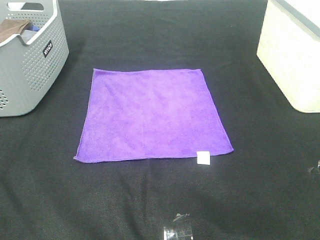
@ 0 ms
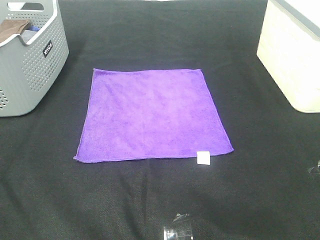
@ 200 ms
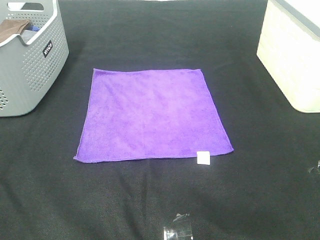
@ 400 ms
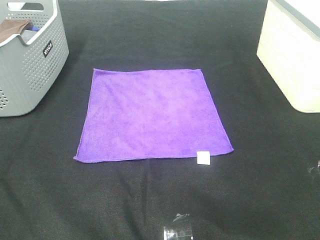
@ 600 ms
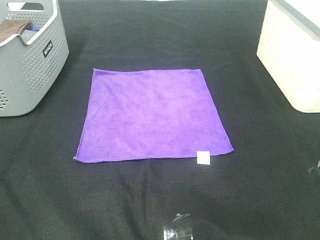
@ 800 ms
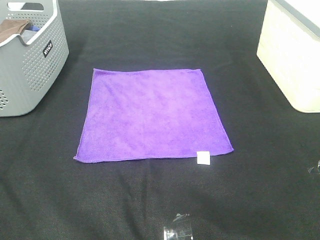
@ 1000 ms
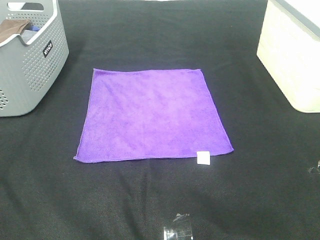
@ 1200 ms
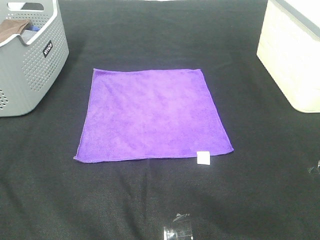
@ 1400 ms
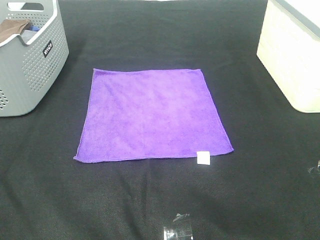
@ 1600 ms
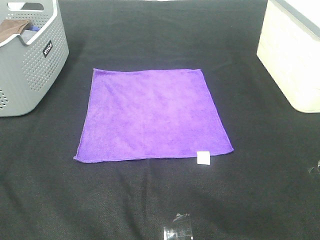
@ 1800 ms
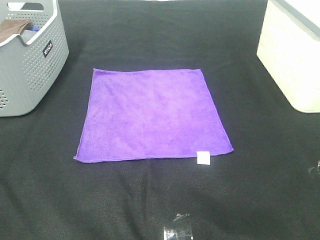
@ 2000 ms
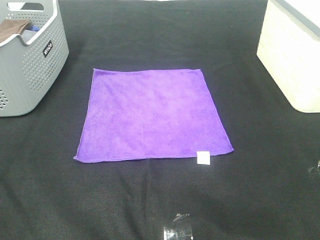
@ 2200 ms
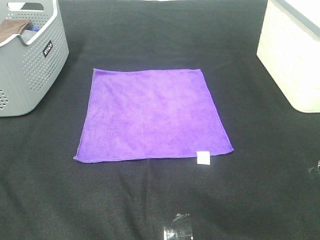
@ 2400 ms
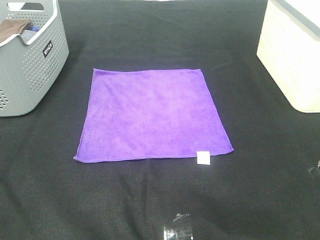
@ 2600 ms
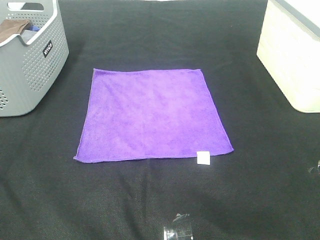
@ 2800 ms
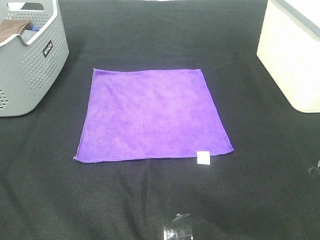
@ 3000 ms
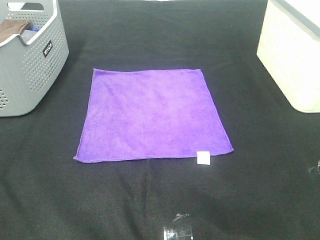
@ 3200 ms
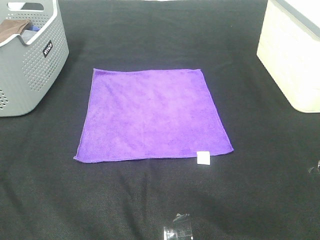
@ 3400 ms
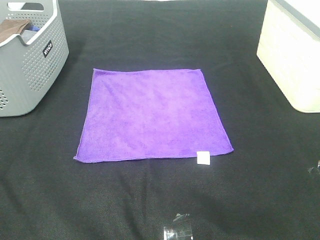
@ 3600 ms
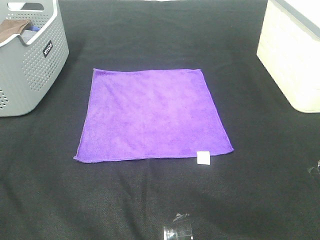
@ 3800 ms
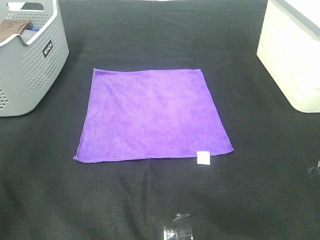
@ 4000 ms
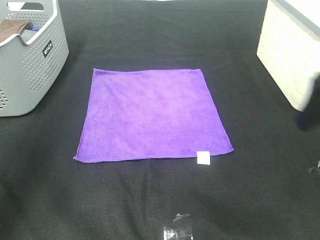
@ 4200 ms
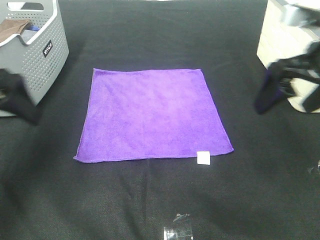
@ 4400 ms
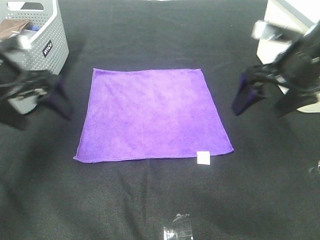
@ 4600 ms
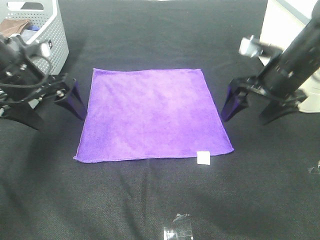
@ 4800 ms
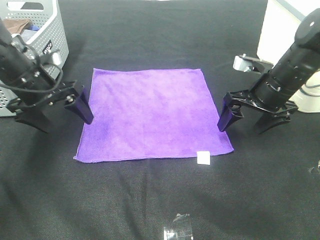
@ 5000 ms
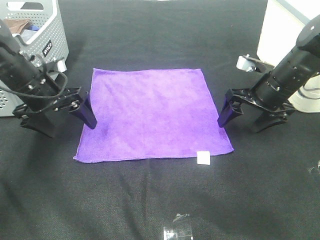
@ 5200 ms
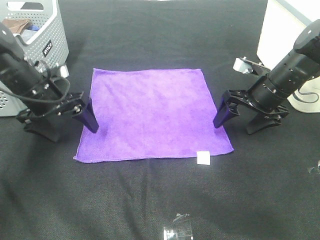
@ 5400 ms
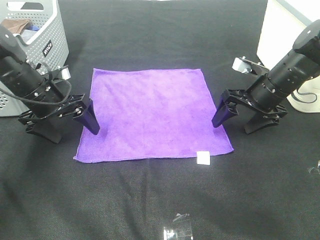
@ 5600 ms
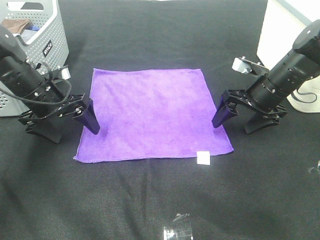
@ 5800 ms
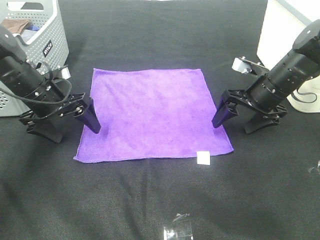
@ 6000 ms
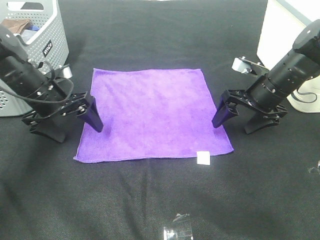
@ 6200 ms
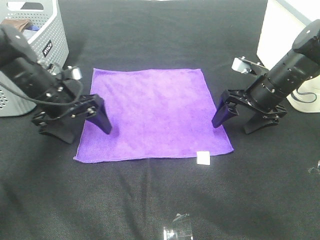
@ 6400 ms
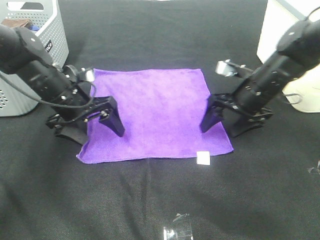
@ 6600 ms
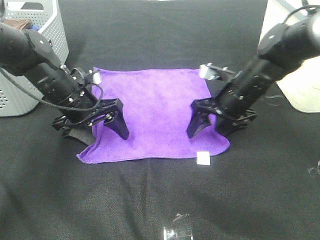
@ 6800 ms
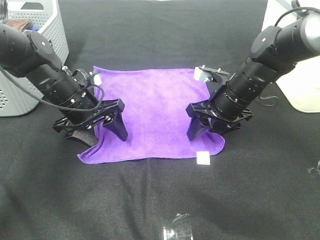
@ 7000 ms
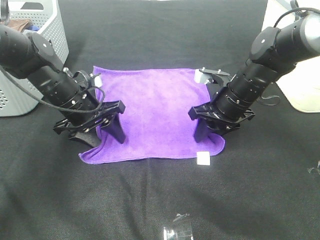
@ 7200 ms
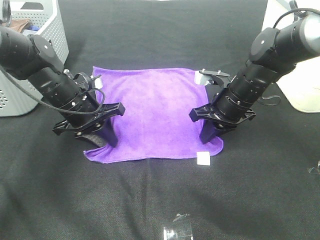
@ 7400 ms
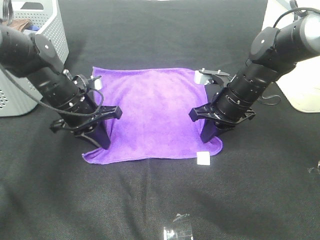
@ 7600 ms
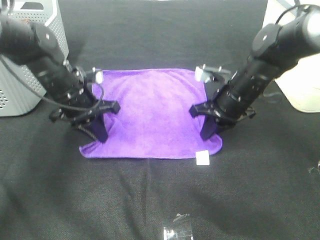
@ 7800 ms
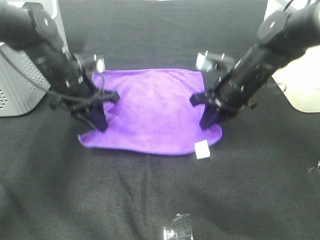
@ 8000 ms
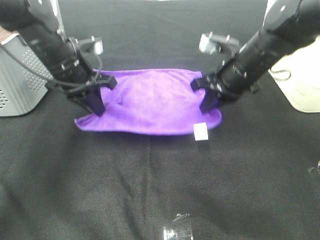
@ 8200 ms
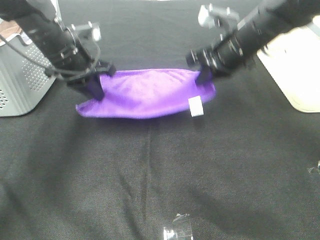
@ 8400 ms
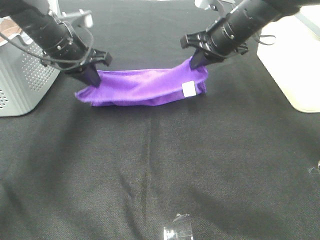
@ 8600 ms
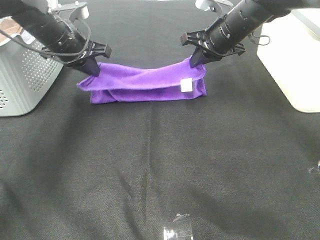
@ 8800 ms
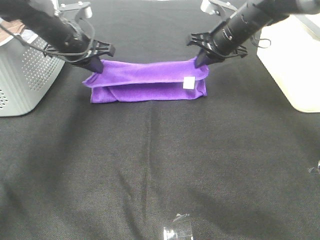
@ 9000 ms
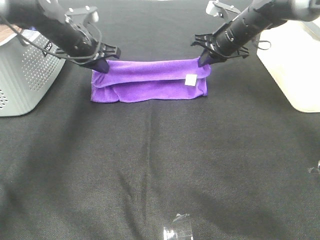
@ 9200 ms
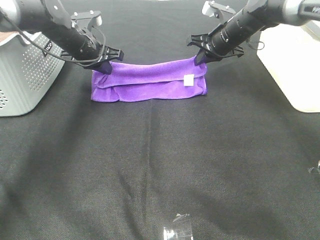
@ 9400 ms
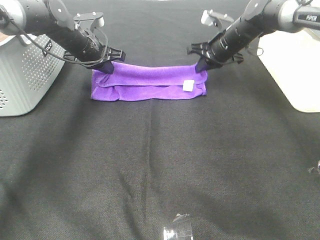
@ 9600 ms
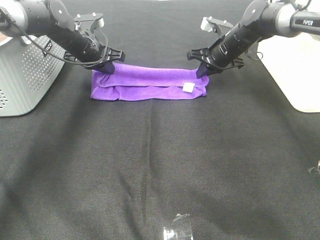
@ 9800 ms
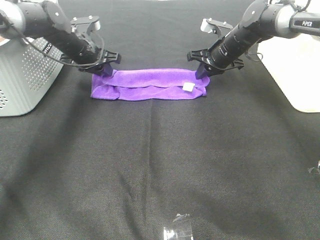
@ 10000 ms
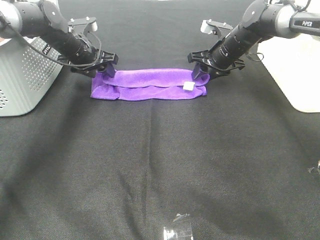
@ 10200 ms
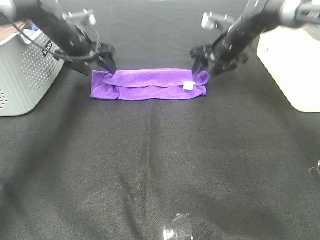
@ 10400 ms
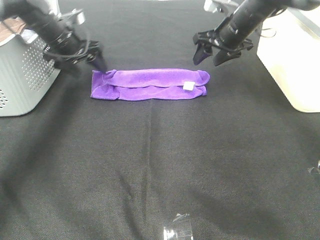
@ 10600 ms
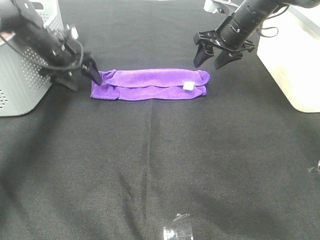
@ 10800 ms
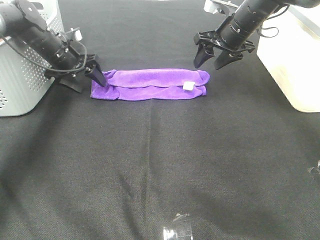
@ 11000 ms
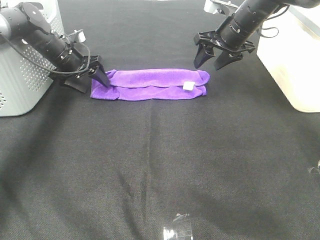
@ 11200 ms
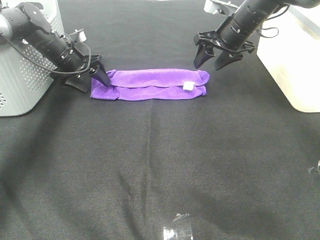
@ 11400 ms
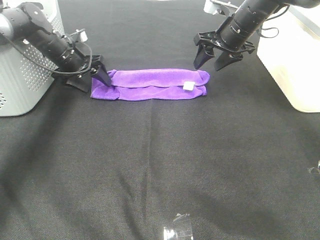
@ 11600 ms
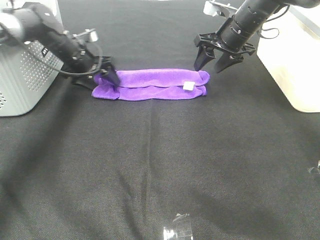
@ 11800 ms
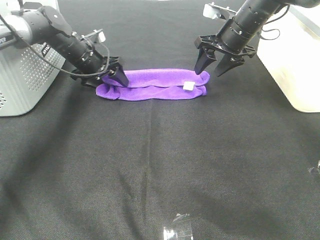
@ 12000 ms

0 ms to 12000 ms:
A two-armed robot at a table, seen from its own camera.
Task of the whole recording: Fold towels.
Step, 0 ms to 7600 ms: Left hand: grab the bottom left corner of purple towel.
Step, 0 ms to 7600 ms: Right hand: grab the bottom right corner of purple towel.
Step, 7800 ms to 9600 ms: Left hand: fold the purple towel up.
Step, 7800 ms to 9600 ms: Right hand: fold the purple towel up.
0 ms to 3000 ms: Neither gripper changes place.
3000 ms to 4400 ms: The grippers both shift forward by approximately 30 cm.
4400 ms to 6000 ms: The grippers both shift downward and forward by about 20 cm.
6000 ms to 7600 ms: The left gripper travels to the right by approximately 5 cm, and closes up. The right gripper goes some 5 cm to the left, and closes up.
7600 ms to 9000 ms: Both grippers move forward and upward, roughly 15 cm.
9000 ms to 10400 ms: The left gripper ends up some 5 cm from where it was, and opens up. Meanwhile the right gripper opens up.
10400 ms to 12000 ms: The left gripper travels downward by some 5 cm.

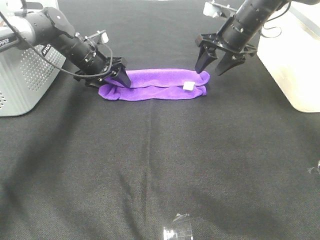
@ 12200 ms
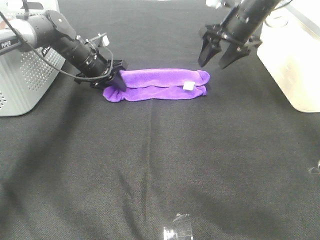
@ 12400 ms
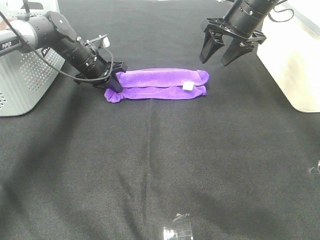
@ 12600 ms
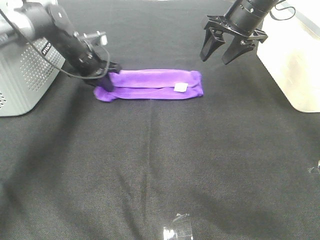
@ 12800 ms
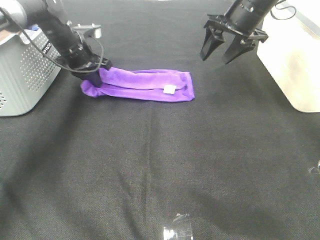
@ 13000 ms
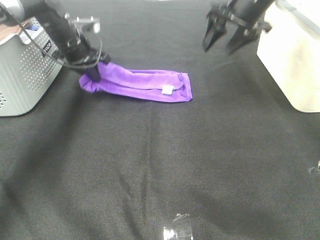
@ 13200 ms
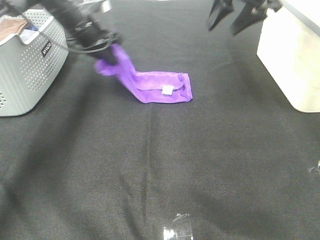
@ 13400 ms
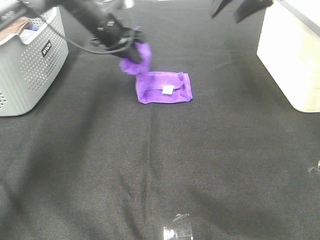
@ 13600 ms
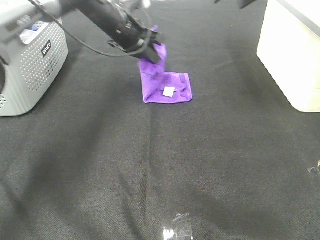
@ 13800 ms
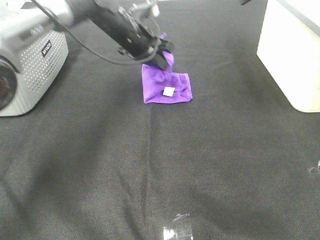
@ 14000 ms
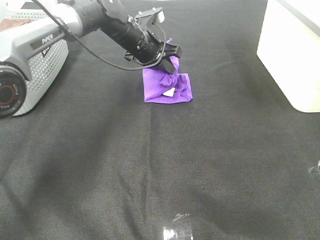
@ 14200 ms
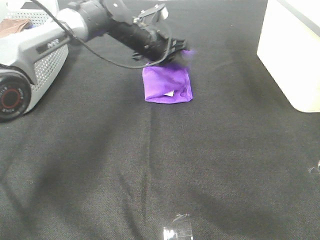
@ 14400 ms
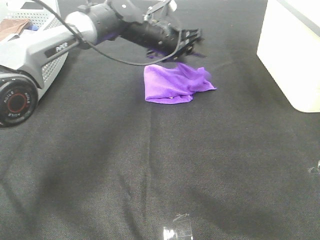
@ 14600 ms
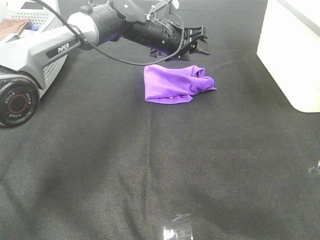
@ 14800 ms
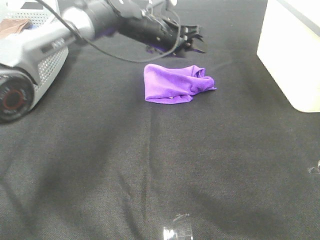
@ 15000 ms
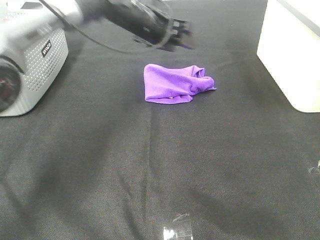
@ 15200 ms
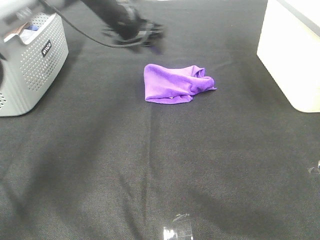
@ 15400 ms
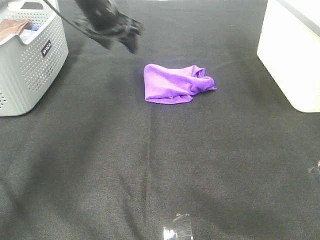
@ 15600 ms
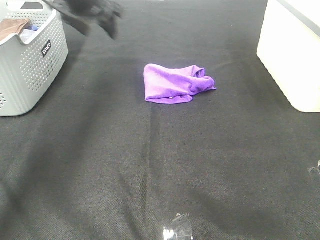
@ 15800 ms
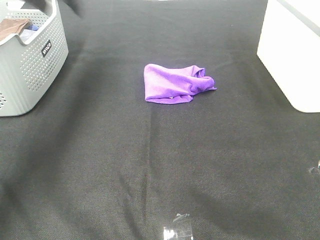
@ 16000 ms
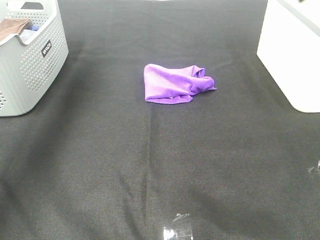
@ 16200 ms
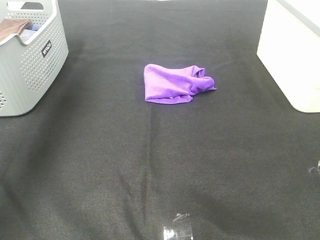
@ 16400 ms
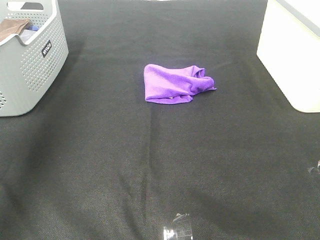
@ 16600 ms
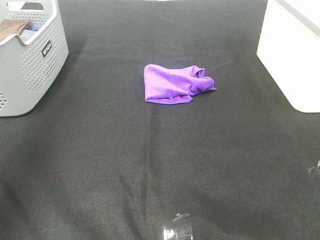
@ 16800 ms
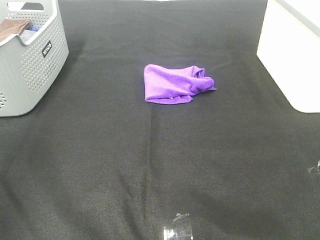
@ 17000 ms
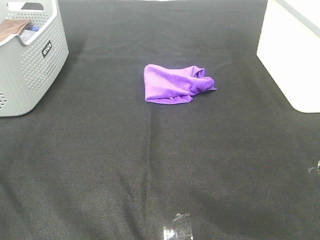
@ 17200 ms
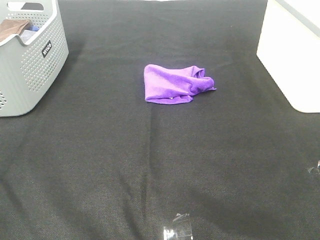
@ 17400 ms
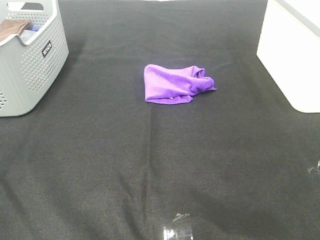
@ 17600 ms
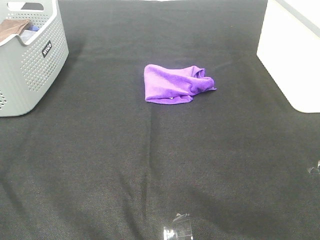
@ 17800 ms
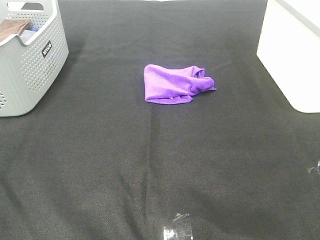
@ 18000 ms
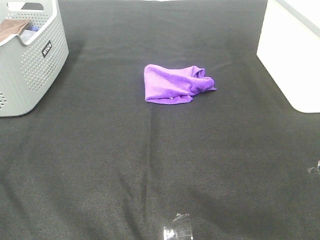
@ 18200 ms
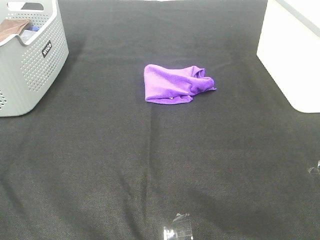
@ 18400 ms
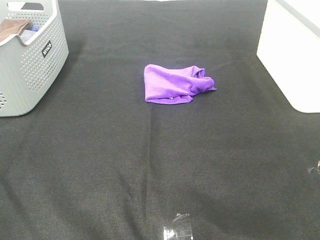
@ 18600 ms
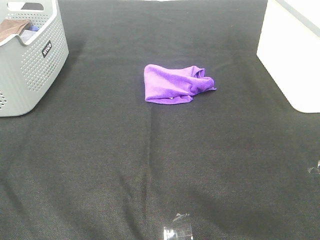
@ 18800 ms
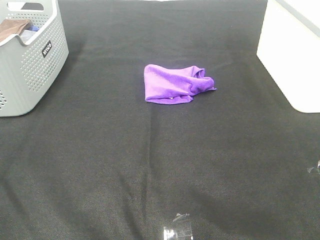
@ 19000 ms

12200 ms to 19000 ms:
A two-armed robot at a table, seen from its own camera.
Task of the whole recording: Fold towels.
12200 ms to 13600 ms: The left gripper travels upward and to the right by roughly 10 cm, and closes up. The right gripper heads upward, covering approximately 15 cm.
13600 ms to 15000 ms: The left gripper is displaced to the right by approximately 10 cm, and opens.
15000 ms to 16200 ms: The left gripper moves to the left and upward, about 35 cm, while the right gripper is displaced backward by roughly 20 cm.
16200 ms to 17600 ms: The right gripper moves backward and downward, some 30 cm. Meanwhile the left gripper shifts approximately 50 cm backward.
17600 ms to 19000 ms: Both grippers stay about where they are.
